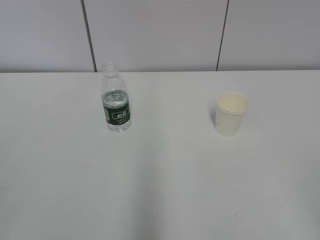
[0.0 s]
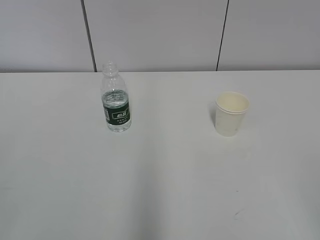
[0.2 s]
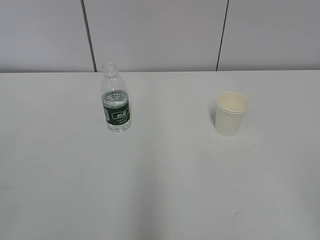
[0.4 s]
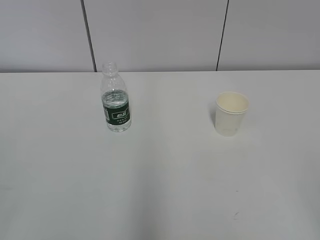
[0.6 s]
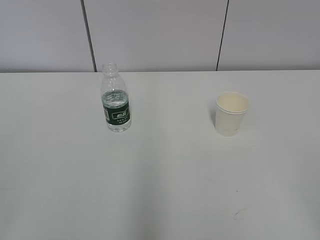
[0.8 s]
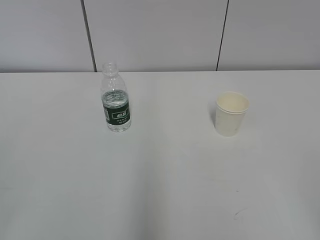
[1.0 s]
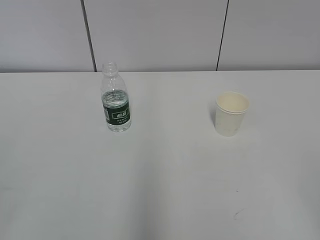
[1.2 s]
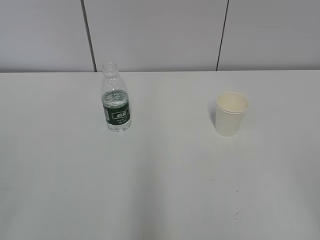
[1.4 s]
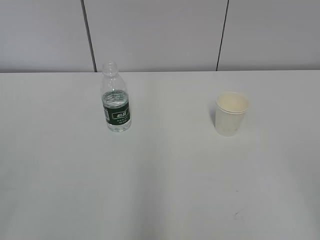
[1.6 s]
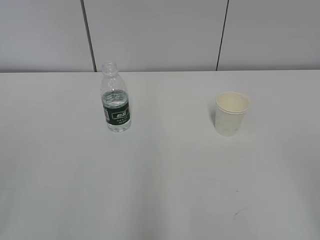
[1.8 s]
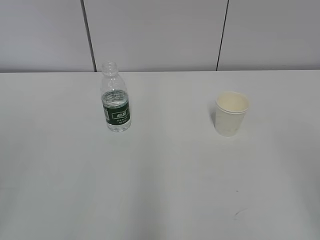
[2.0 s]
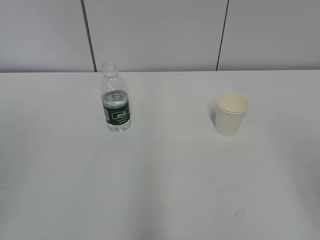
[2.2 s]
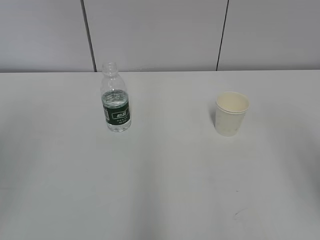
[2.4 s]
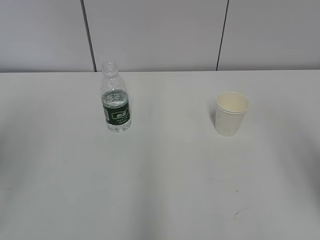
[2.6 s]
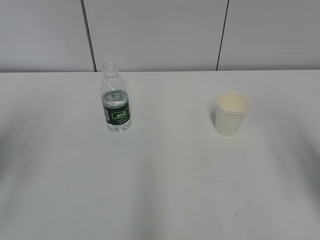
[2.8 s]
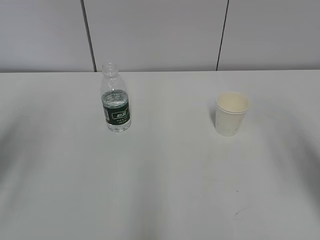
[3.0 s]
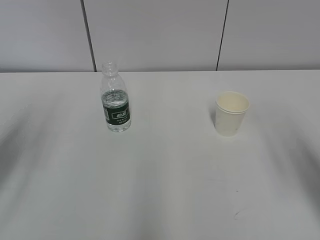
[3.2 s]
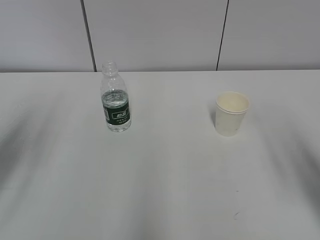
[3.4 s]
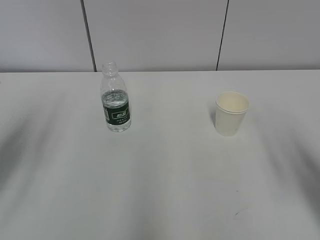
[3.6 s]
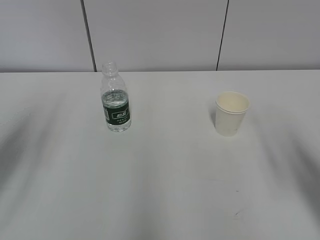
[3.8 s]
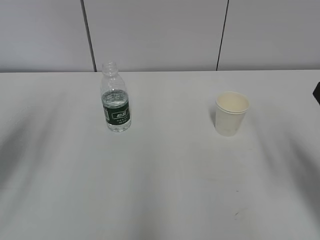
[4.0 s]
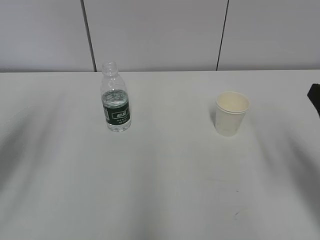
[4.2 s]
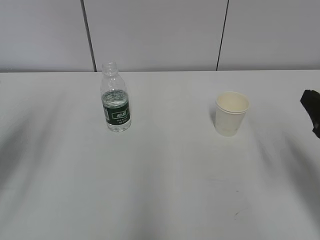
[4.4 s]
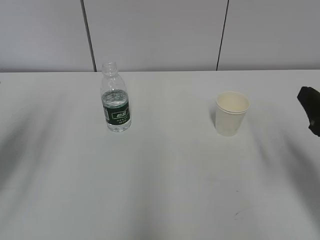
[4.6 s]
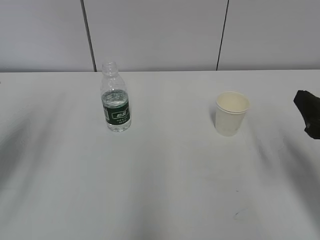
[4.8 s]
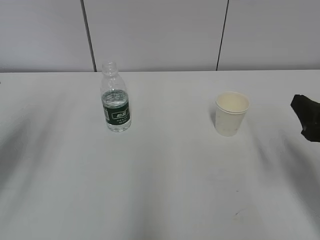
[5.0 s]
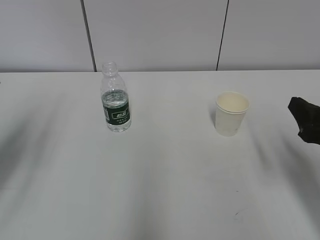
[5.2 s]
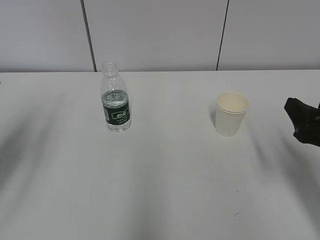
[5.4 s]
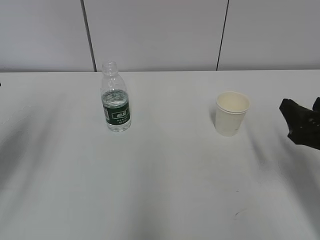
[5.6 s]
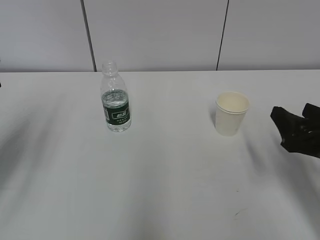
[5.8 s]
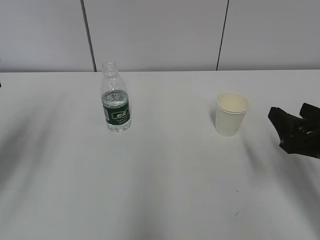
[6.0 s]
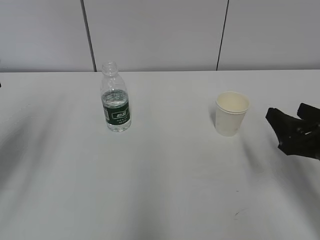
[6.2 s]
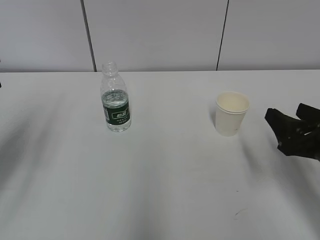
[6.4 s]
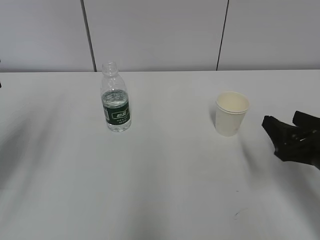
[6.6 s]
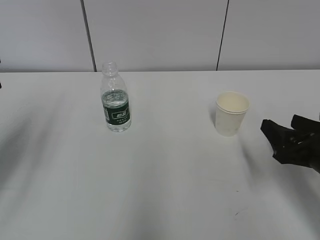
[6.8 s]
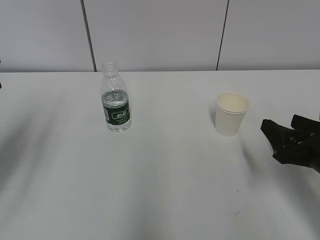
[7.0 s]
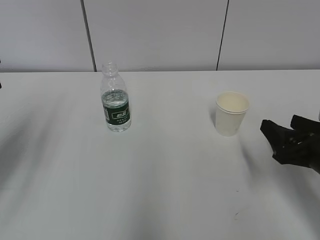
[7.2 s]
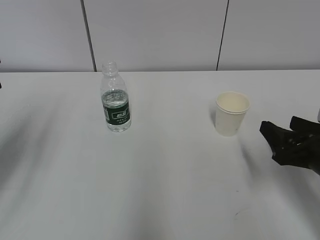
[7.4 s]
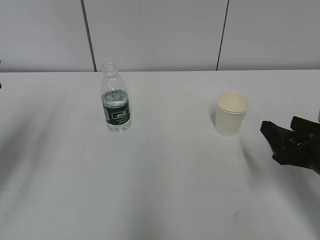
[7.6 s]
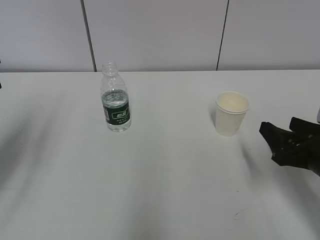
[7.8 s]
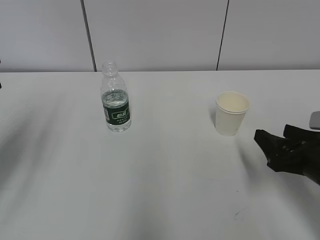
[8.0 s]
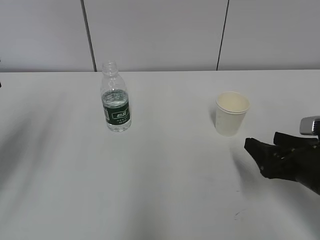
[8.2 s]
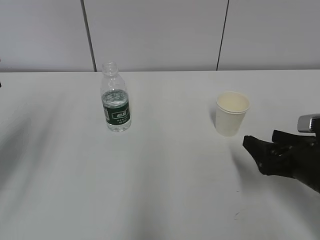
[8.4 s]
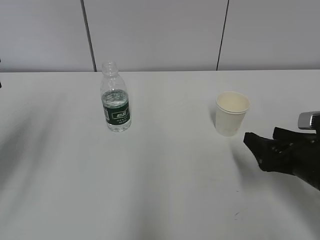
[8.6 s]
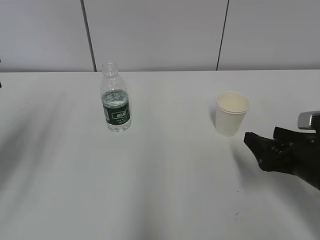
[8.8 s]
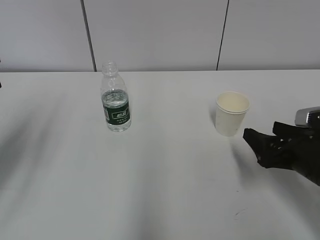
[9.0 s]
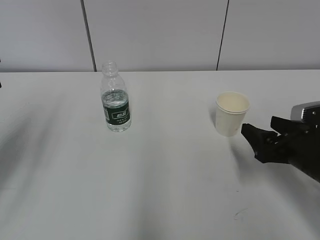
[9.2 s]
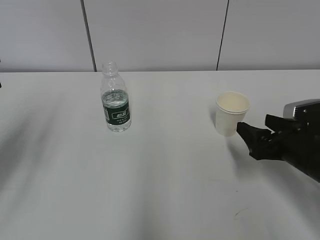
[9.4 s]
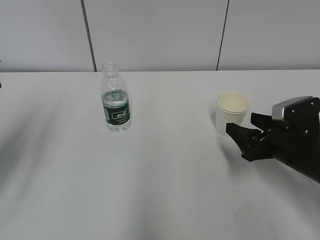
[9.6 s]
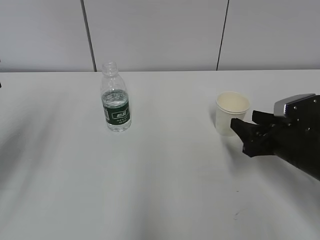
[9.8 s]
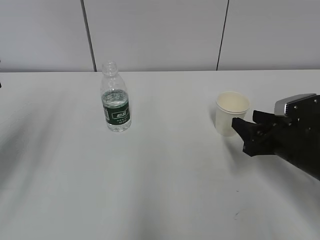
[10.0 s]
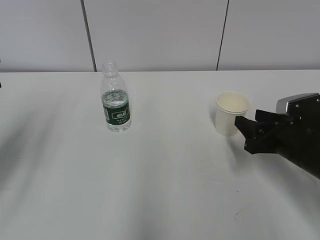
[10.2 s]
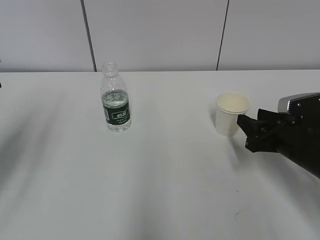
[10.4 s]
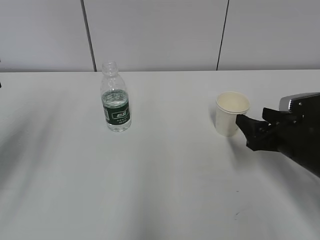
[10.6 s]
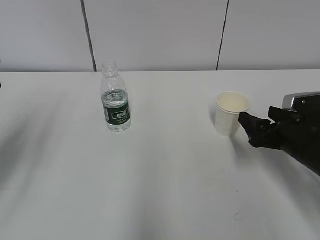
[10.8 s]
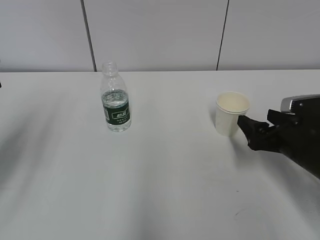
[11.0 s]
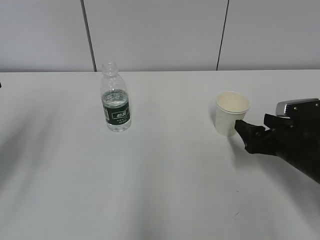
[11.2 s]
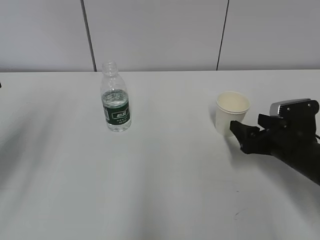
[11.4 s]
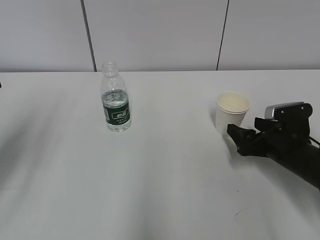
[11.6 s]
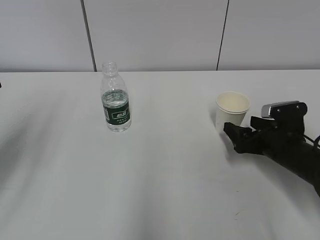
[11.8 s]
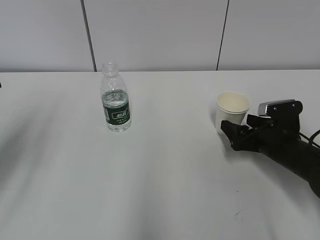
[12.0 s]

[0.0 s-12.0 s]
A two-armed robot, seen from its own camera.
1.6 to 3.0 s: Both grippers move forward, some 20 cm.
3.0 to 4.4 s: The right gripper goes roughly 10 cm downward.
4.4 to 6.0 s: The right gripper is displaced downward by some 5 cm.
6.0 to 9.0 s: The grippers stay close to where they were, moving slightly.
9.0 to 10.4 s: The right gripper closes up.
10.4 to 12.0 s: The right gripper moves roughly 5 cm, and opens its fingers.

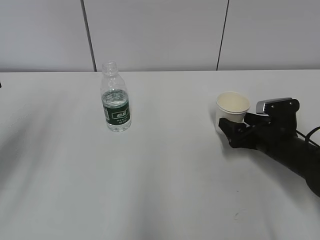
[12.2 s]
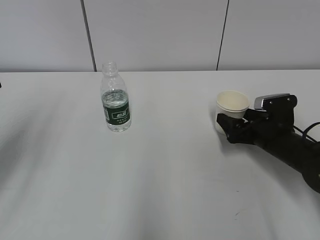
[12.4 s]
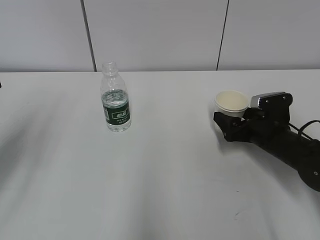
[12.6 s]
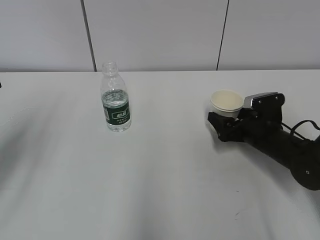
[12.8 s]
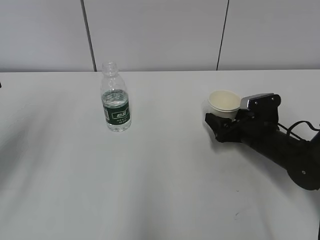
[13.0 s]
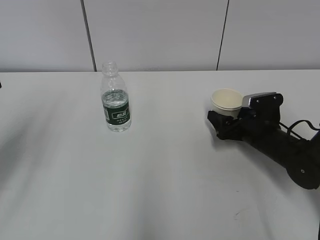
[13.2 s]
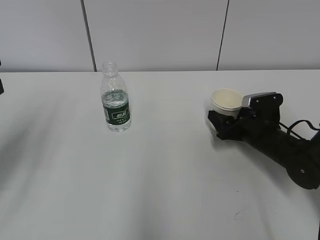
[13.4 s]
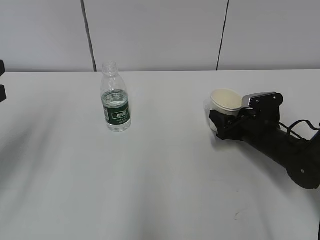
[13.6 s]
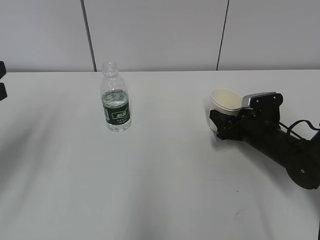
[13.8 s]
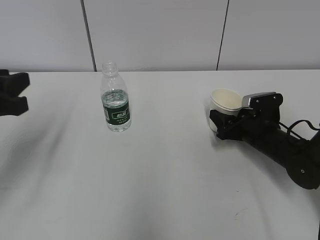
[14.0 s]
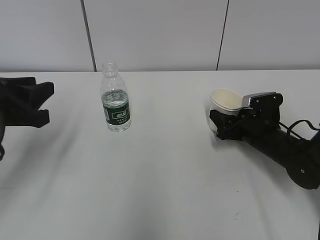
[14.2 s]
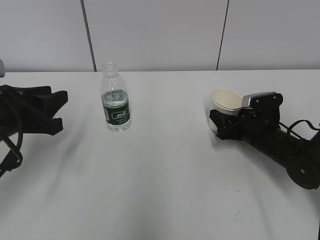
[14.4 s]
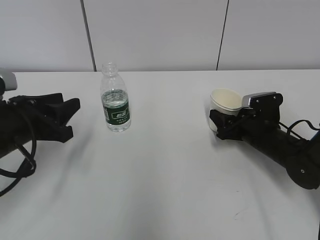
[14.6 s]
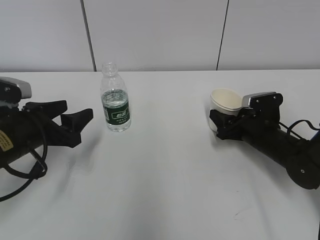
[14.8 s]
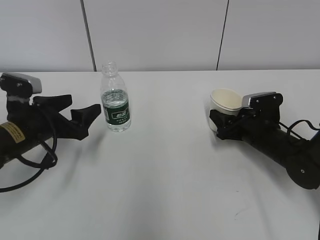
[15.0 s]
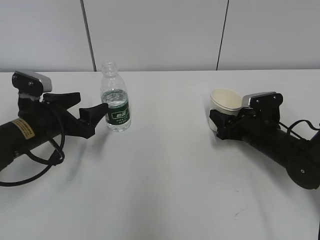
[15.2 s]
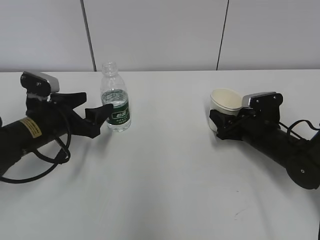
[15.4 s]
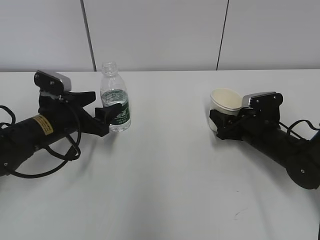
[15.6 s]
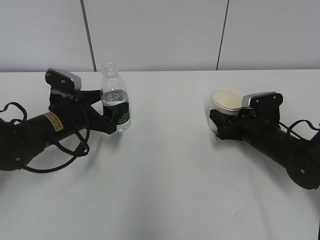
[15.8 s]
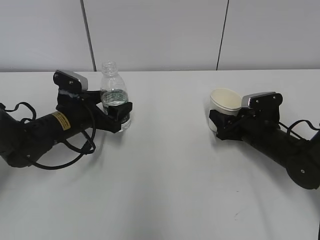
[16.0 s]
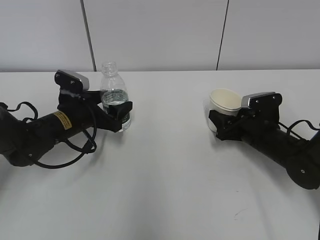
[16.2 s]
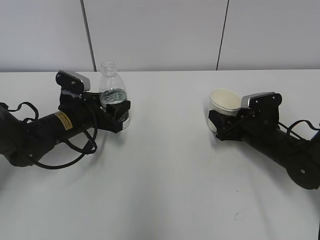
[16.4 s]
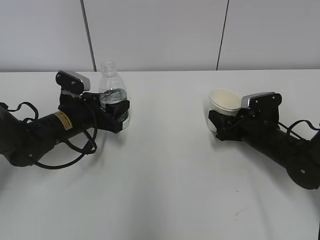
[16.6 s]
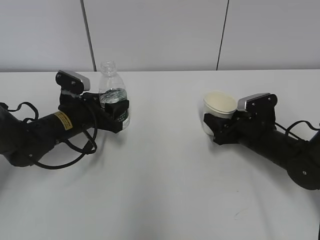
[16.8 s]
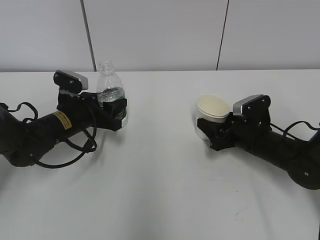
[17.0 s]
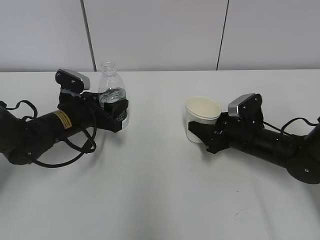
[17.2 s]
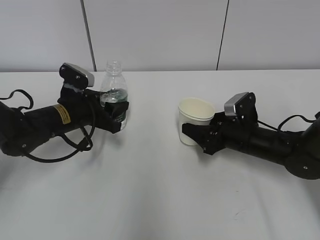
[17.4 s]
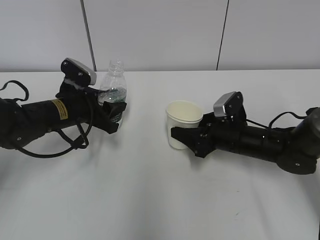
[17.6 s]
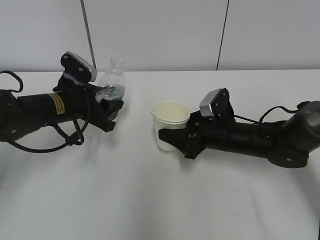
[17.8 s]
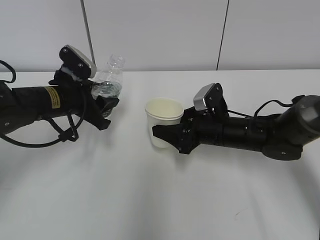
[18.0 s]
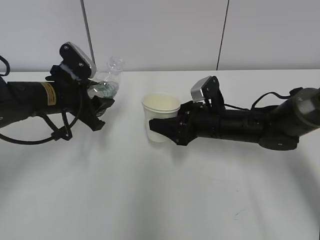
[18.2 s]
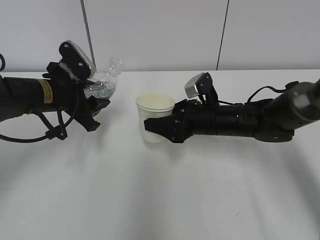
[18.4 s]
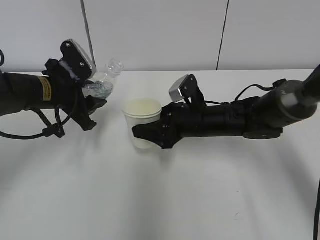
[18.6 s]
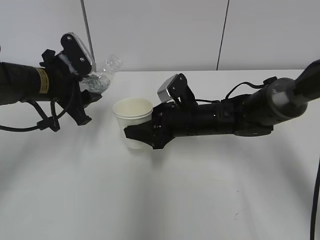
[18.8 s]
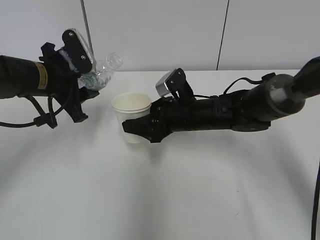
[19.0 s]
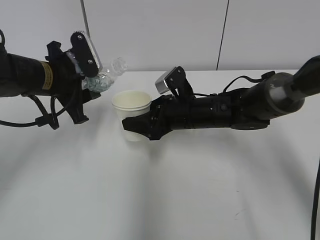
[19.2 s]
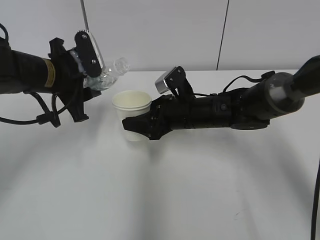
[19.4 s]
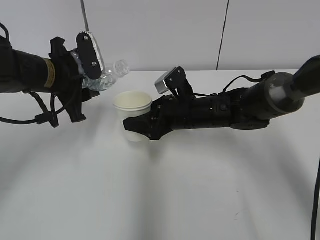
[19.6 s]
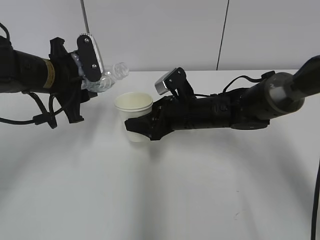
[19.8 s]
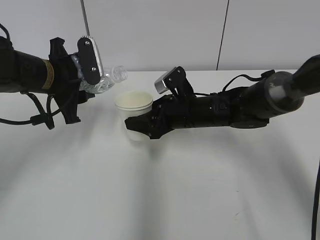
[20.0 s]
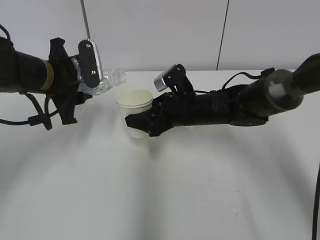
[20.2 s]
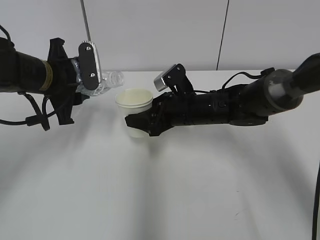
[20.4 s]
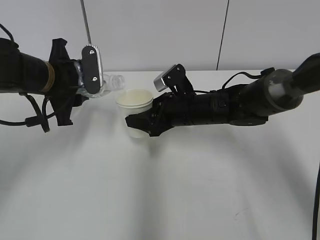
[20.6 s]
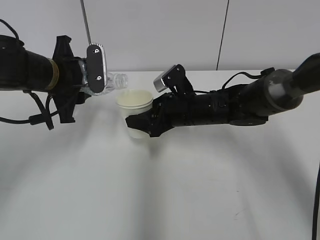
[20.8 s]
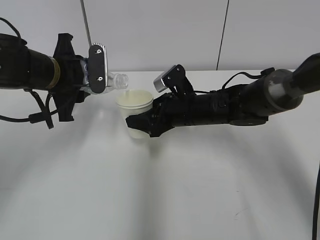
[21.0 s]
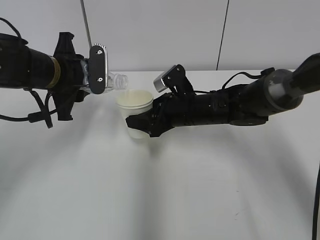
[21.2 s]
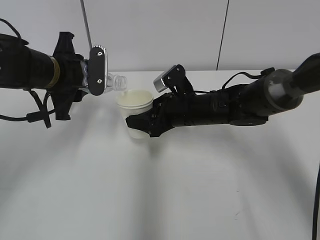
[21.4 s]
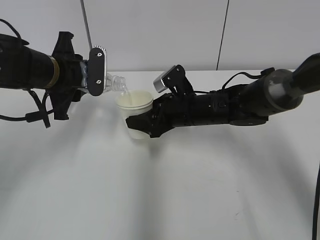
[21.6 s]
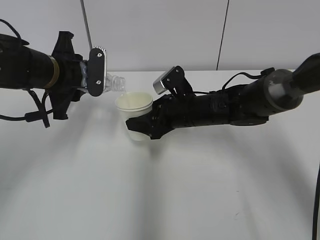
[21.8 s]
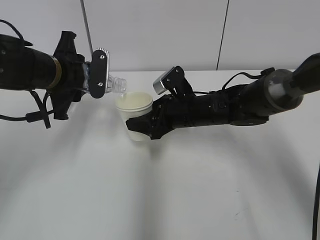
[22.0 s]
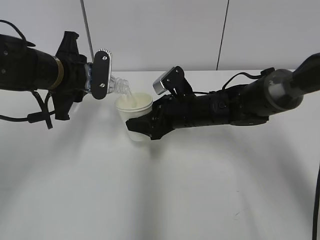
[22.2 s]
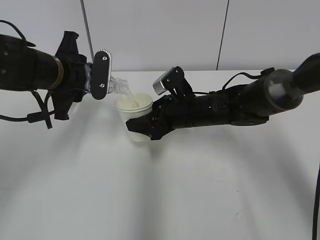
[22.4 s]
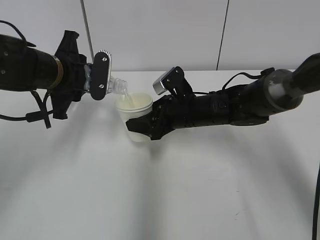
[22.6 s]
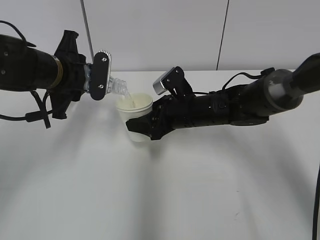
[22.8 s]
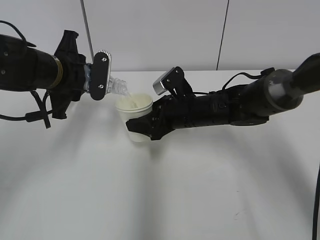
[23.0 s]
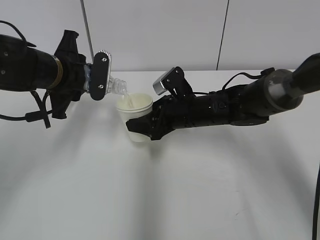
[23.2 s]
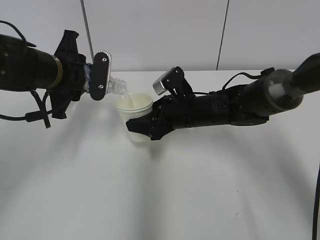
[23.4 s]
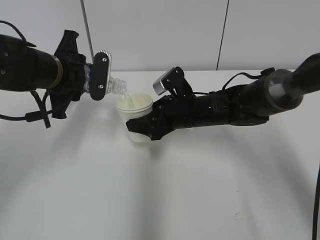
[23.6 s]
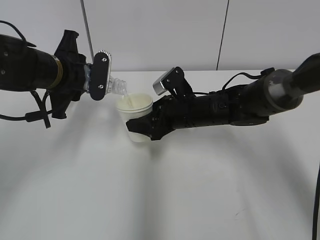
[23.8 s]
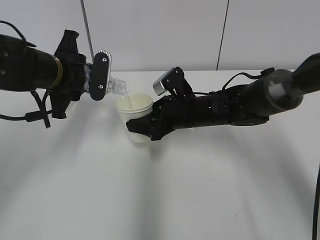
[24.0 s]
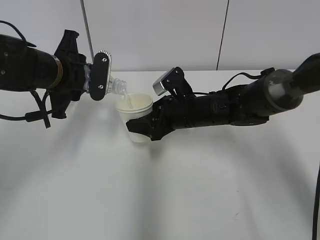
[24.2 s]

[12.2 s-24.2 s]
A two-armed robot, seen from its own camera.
Step, 14.0 to 14.2 s: Grab the water bottle with the left hand.
Step, 14.4 to 17.8 s: Lift the paper cup with the right hand.
Step, 18.0 to 22.6 s: Fill water with the right hand.
Step, 18.0 to 22.6 s: Pour water with the left hand.
12.2 to 13.8 s: The right gripper closes its fingers.
13.8 to 15.2 s: The left gripper travels downward, forward and to the right by roughly 15 cm, and opens.
15.2 to 16.6 s: The left gripper shifts approximately 5 cm forward, and closes.
16.6 to 18.2 s: The left gripper is displaced upward by roughly 5 cm, while the right gripper moves to the left, approximately 10 cm.
18.2 to 19.8 s: The right gripper changes place by roughly 5 cm.
19.8 to 21.2 s: The grippers make only small movements.
21.2 to 22.6 s: The grippers make only small movements.
22.6 to 24.2 s: Neither gripper changes place.
